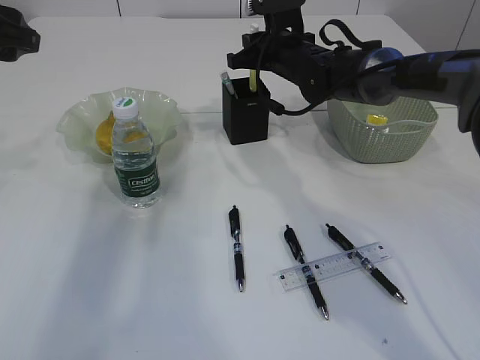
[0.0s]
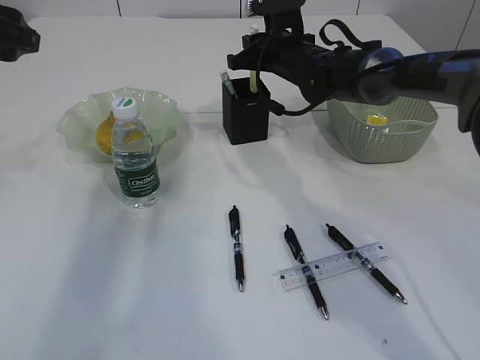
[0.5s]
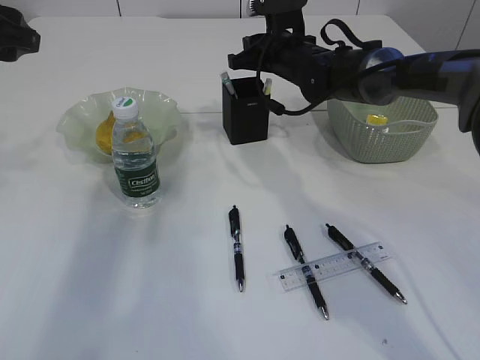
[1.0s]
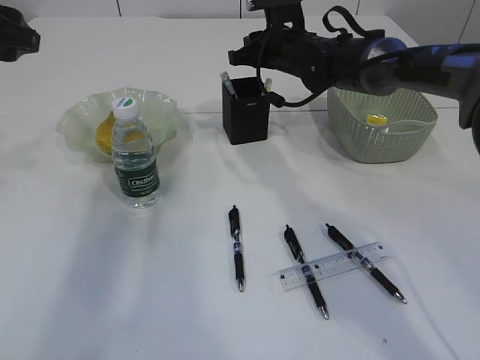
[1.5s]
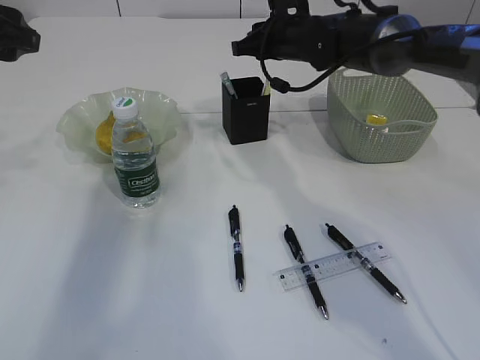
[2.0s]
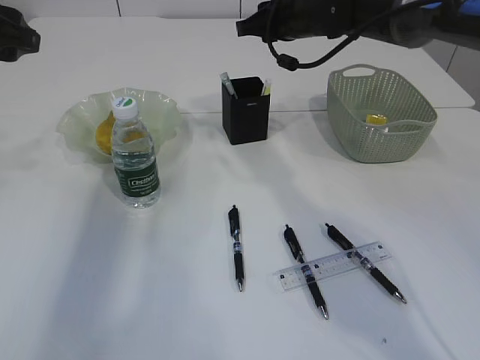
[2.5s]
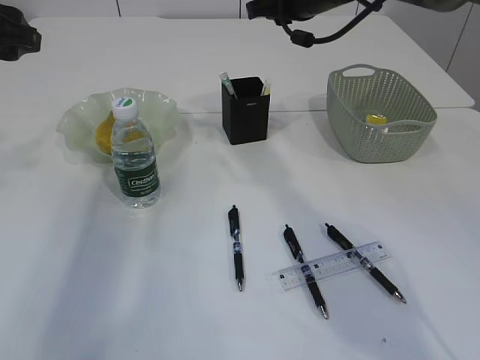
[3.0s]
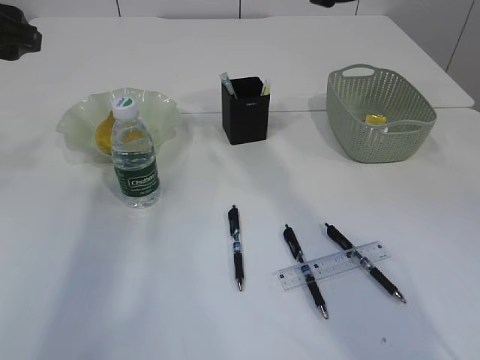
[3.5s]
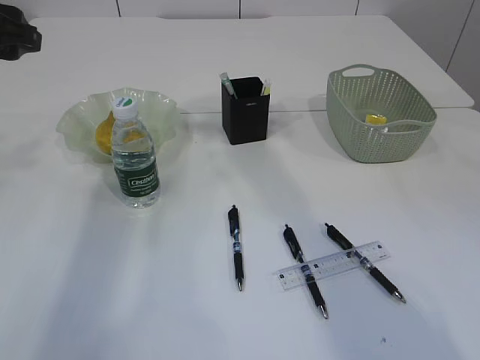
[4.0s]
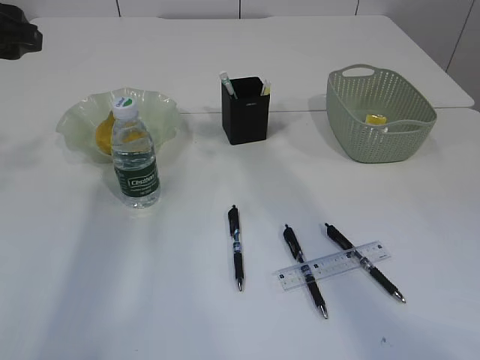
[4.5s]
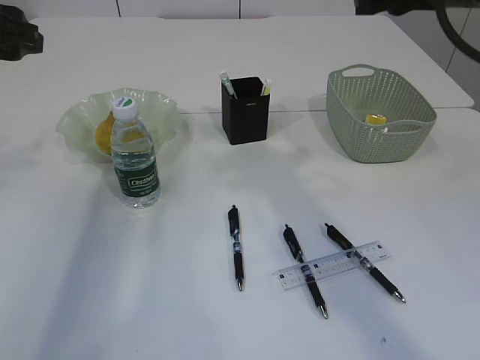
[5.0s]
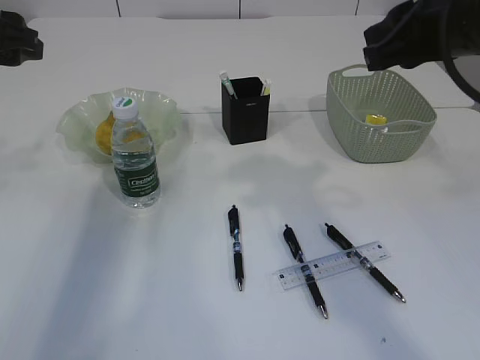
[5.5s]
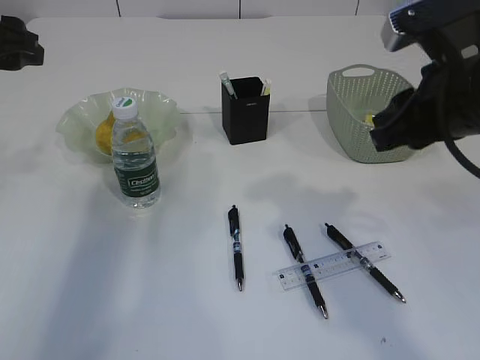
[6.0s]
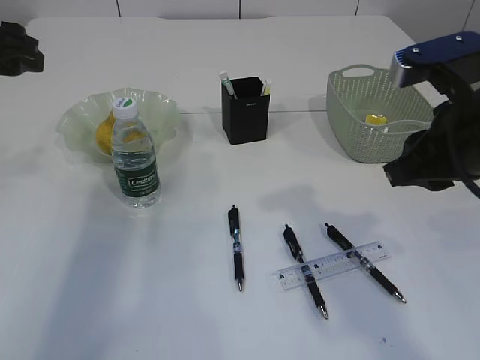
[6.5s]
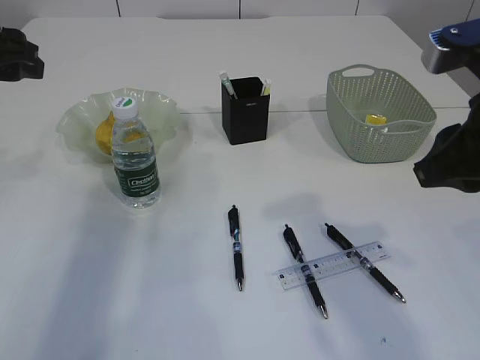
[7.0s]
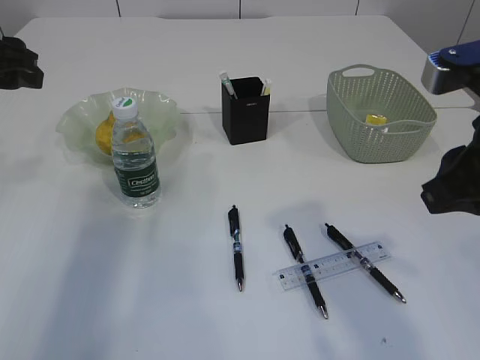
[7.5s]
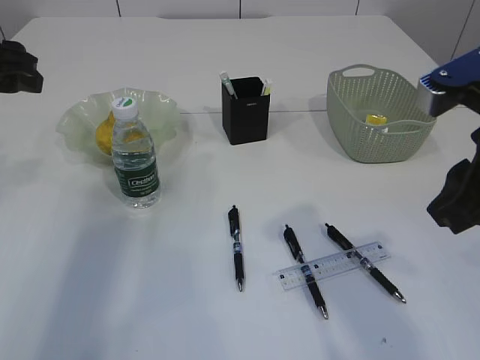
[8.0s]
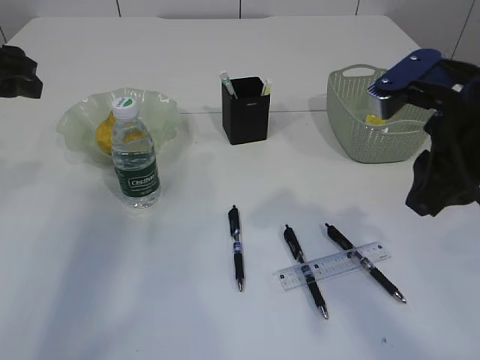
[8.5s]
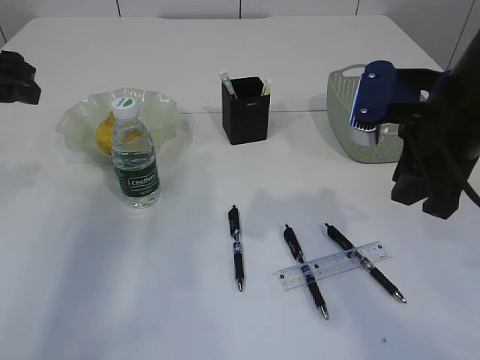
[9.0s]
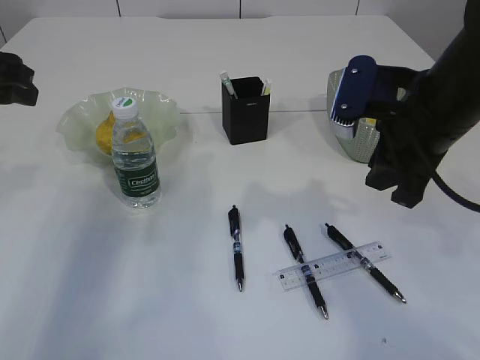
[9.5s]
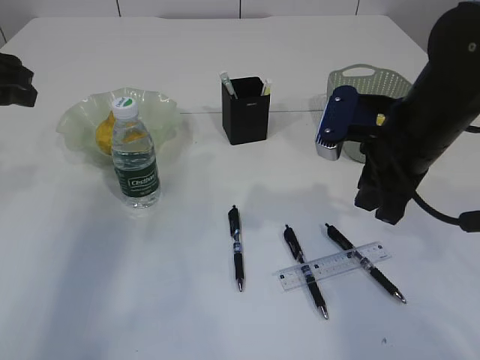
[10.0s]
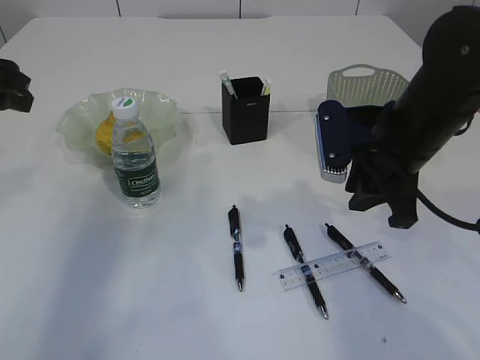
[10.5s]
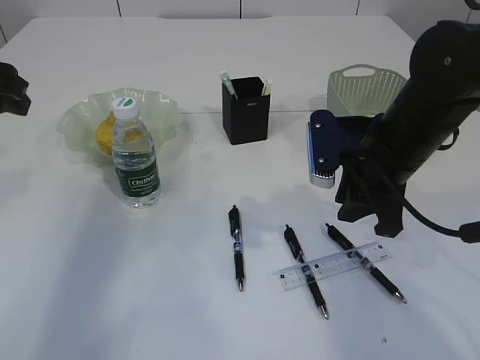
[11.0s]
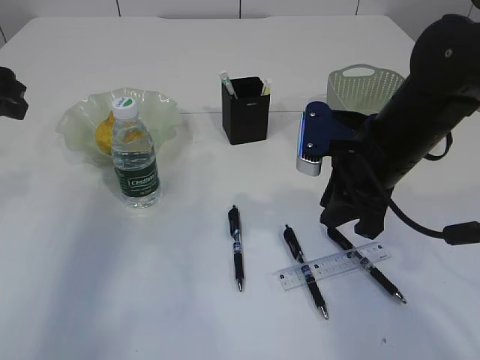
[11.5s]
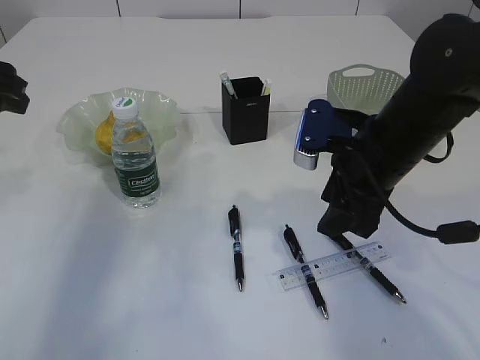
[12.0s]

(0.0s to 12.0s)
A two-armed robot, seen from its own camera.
Step, 0.0s - 2.5s: place the yellow knife into the pen holder.
0.0s - 2.0s: The grippers make only small movements.
2.0s - 4.0s: The right gripper goes about 25 cm upward and backward.
4.0s - 6.0s: The right gripper travels backward and downward by some 20 cm.
6.0s - 8.0s: The right gripper heads backward, covering some 5 cm.
8.0s - 10.0s: The right gripper travels forward and downward by roughly 10 cm.
10.0s - 12.0s: The right gripper opens.

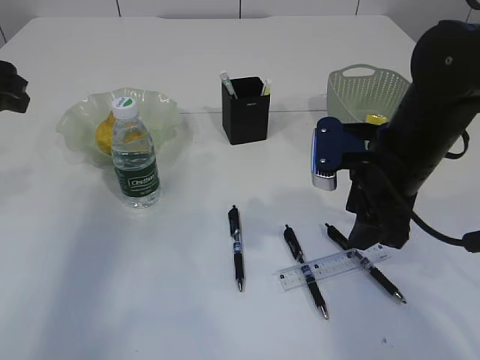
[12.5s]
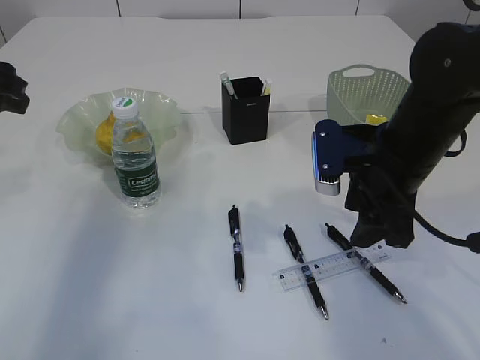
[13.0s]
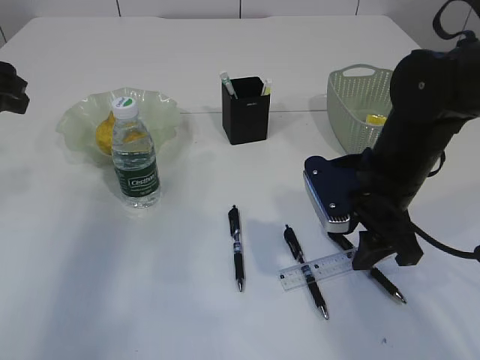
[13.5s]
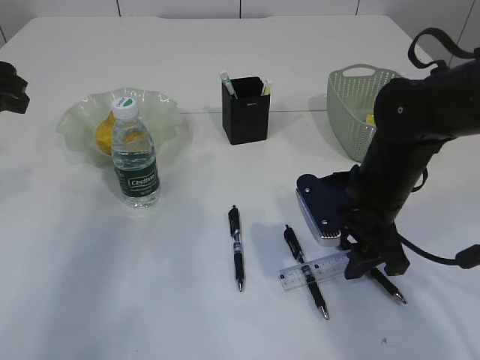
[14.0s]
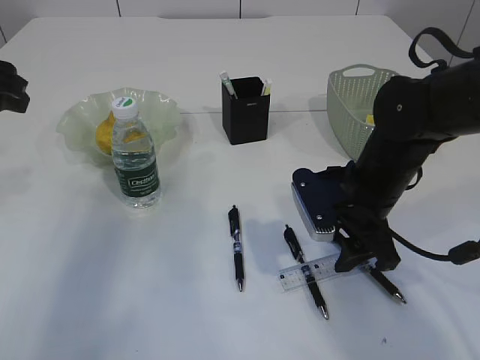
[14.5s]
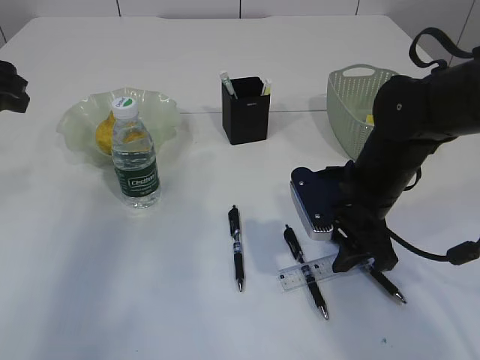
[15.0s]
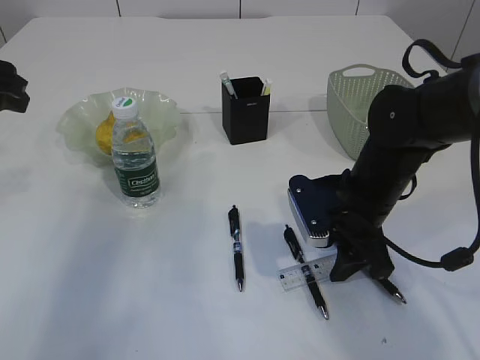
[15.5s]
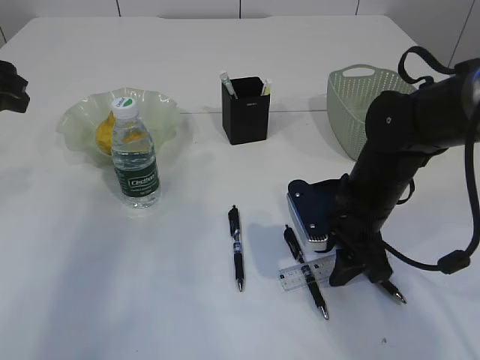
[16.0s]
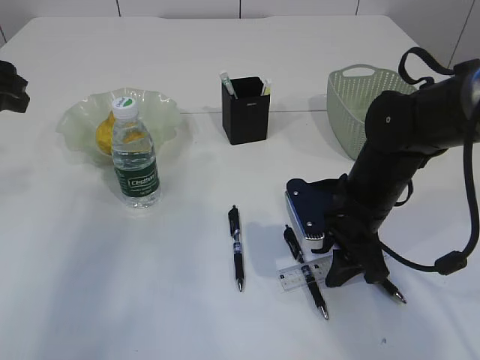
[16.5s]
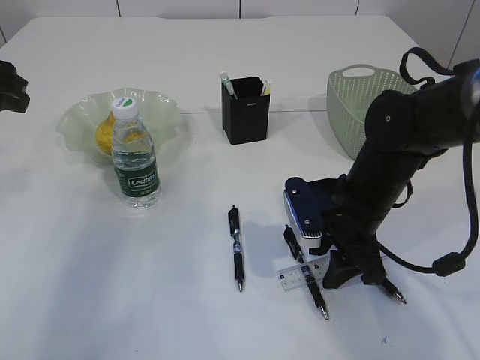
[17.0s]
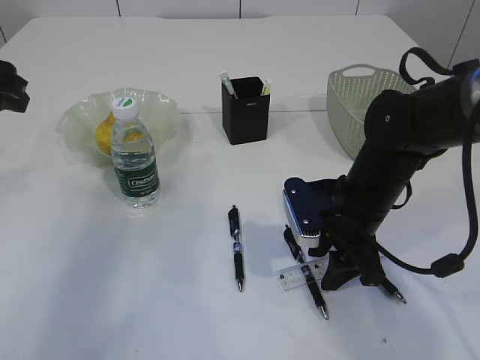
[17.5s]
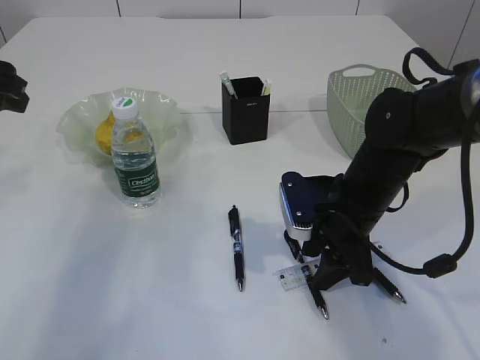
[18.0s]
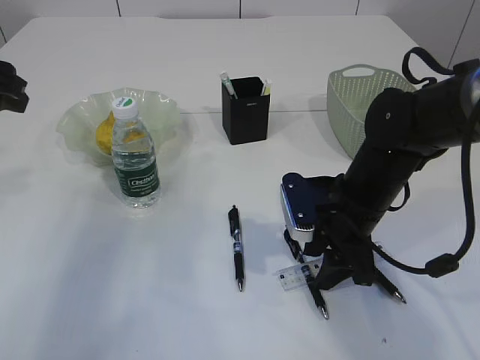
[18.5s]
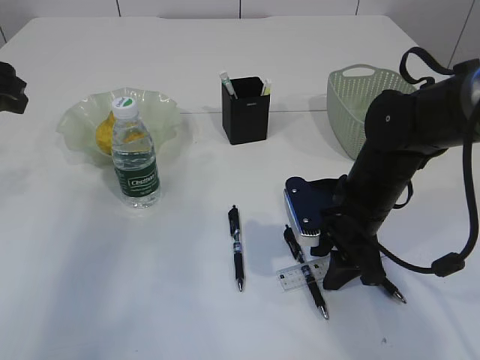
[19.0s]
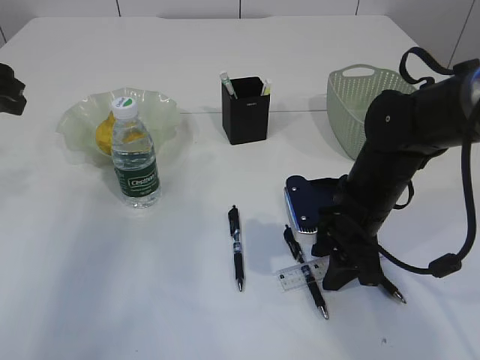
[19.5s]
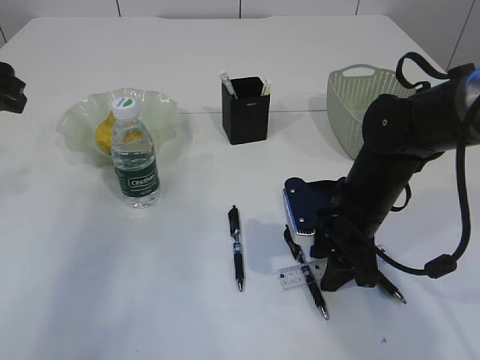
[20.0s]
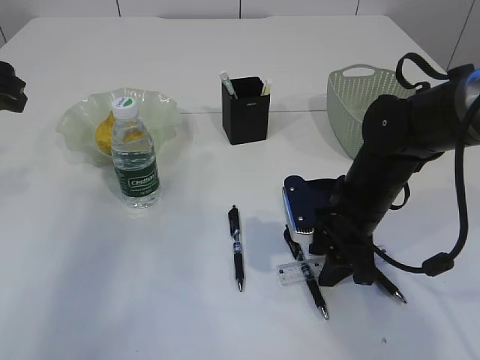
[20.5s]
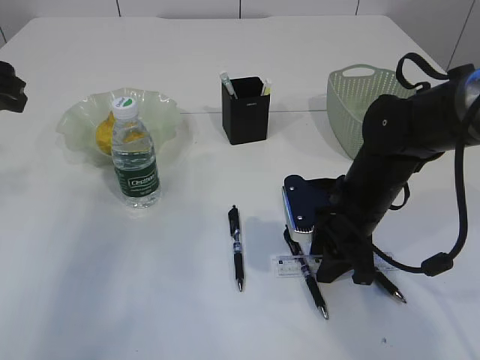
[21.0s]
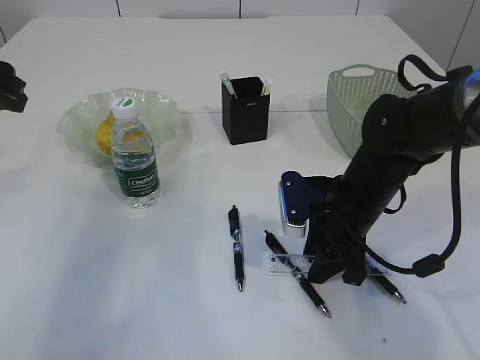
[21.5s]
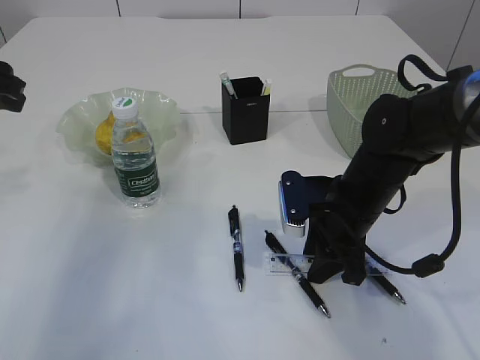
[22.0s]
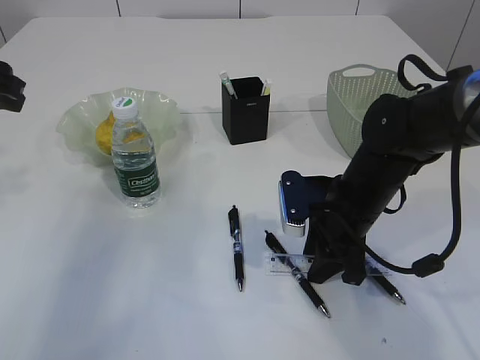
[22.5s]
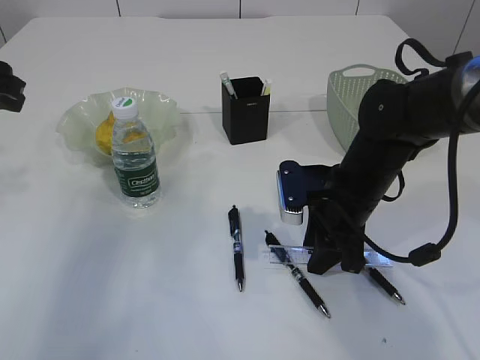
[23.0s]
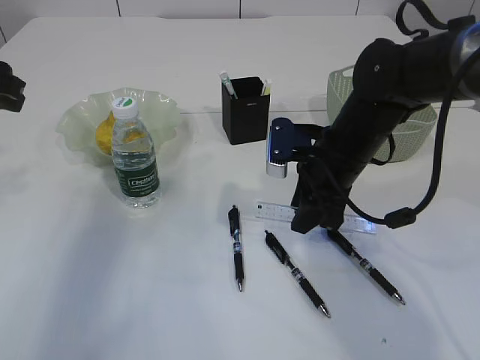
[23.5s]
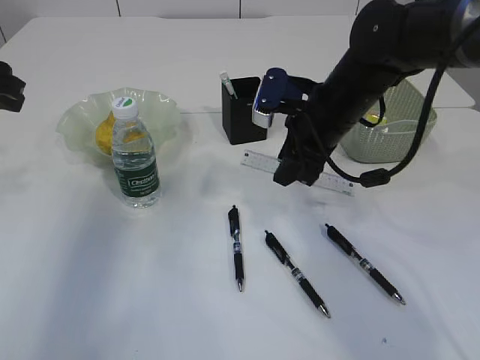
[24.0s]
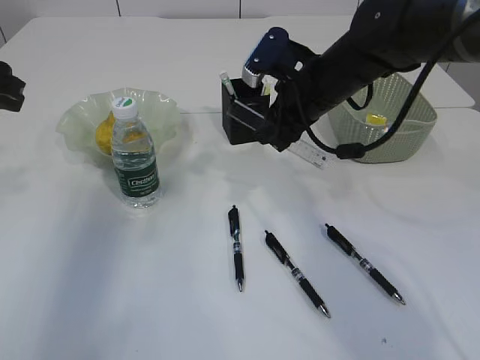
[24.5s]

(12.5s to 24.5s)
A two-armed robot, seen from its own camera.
Step, 12.5s - 23.5s: pick up the ruler.
12.5s - 14.5s: The right gripper shifts approximately 5 cm downward.
14.5s - 18.5s: There are only small adjustments of the grippers.
18.5s - 20.5s: The two grippers keep their place.
20.5s - 22.5s: The grippers make only small movements.
22.5s - 24.5s: The right gripper shifts roughly 15 cm upward and forward.

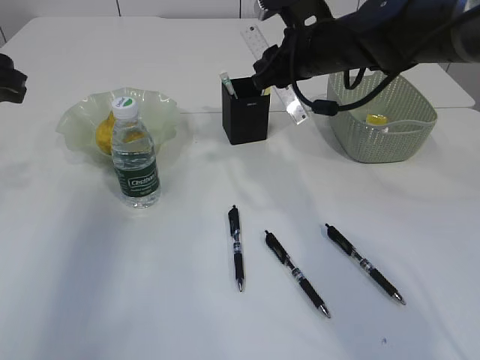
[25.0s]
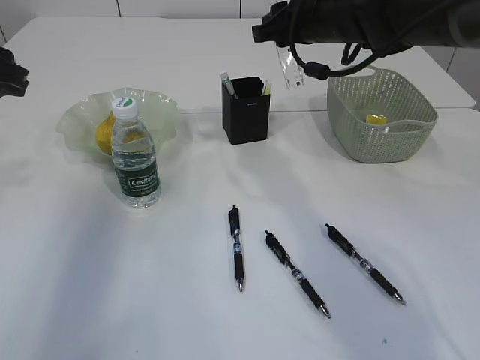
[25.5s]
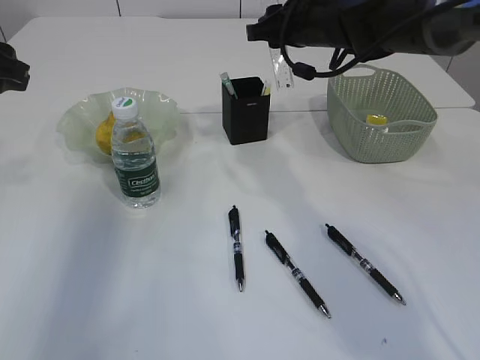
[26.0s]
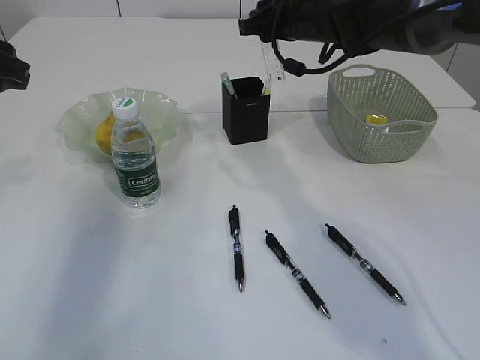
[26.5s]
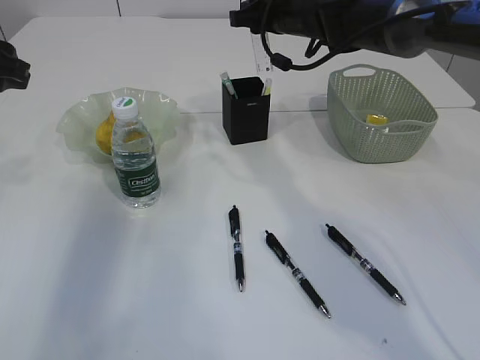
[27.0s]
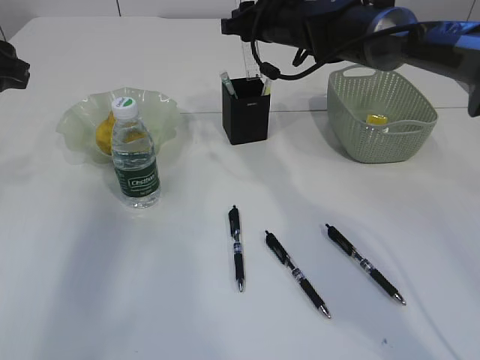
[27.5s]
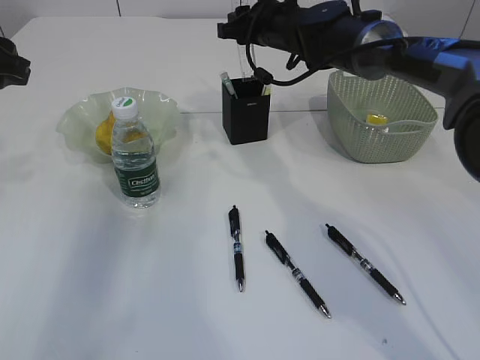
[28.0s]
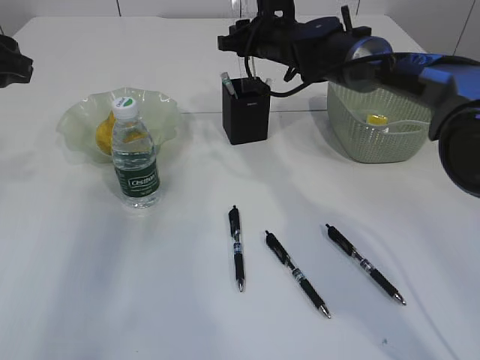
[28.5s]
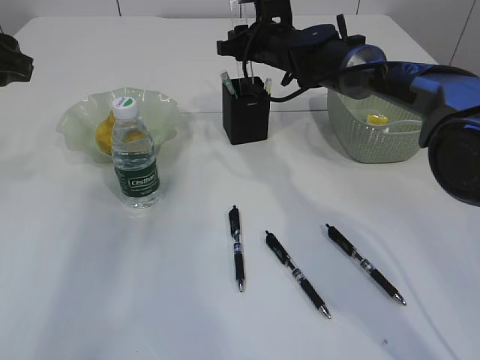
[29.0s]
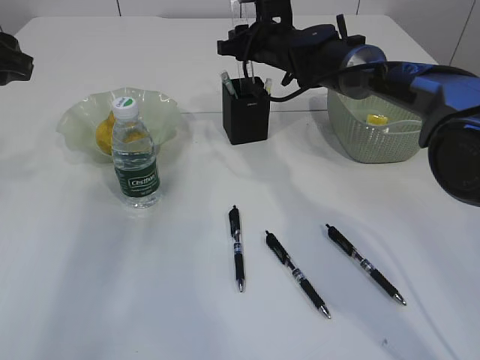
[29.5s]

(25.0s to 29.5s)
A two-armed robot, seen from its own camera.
25.0s - 27.0s: The right gripper travels forward by some 5 cm.
27.0s - 29.5s: The right gripper is displaced downward by approximately 5 cm.
